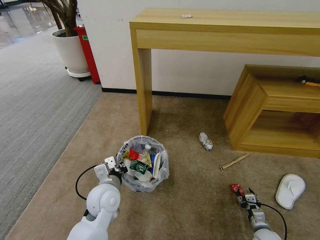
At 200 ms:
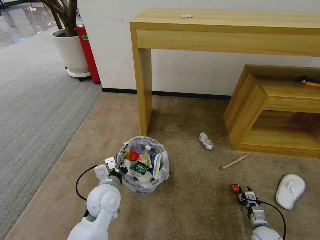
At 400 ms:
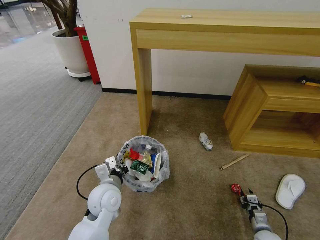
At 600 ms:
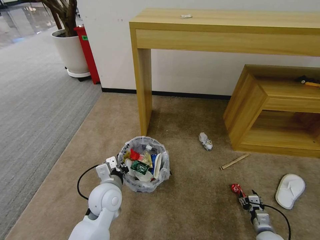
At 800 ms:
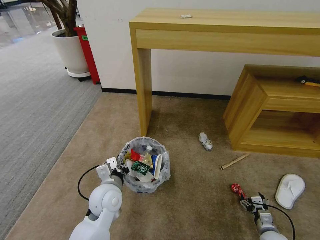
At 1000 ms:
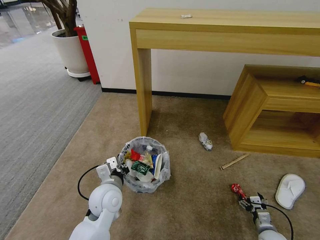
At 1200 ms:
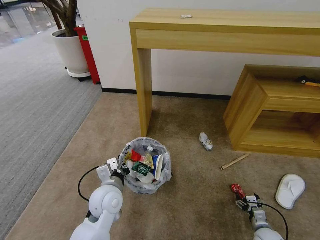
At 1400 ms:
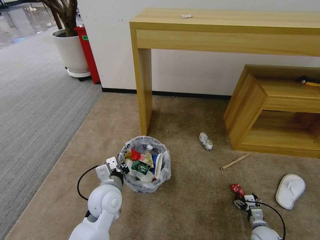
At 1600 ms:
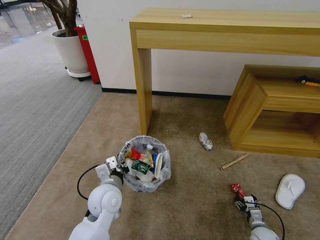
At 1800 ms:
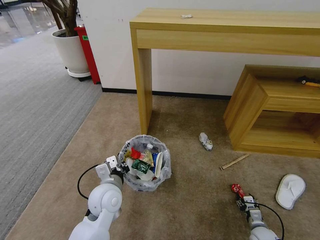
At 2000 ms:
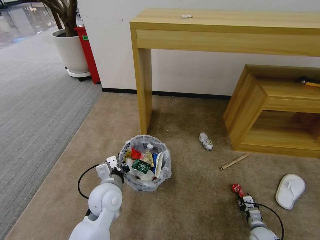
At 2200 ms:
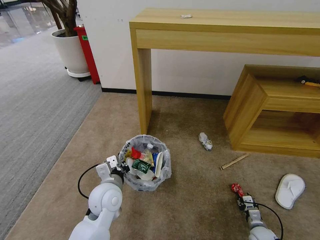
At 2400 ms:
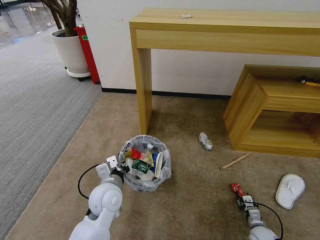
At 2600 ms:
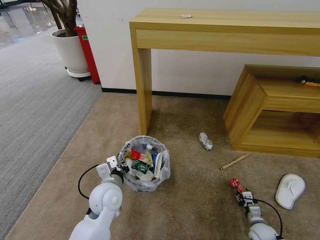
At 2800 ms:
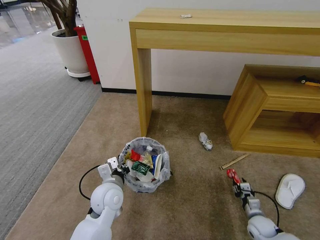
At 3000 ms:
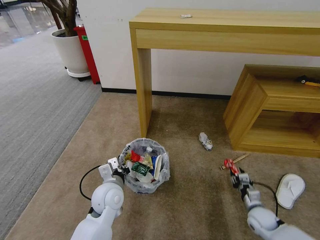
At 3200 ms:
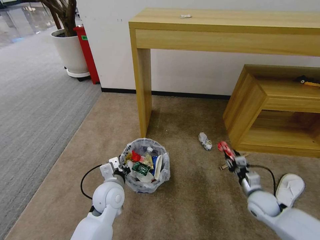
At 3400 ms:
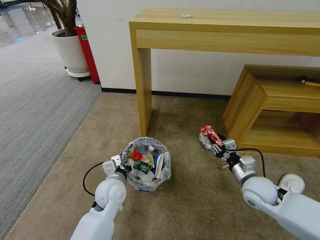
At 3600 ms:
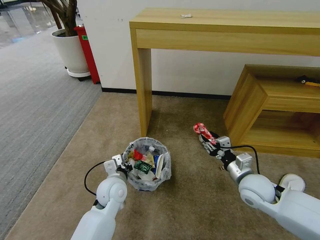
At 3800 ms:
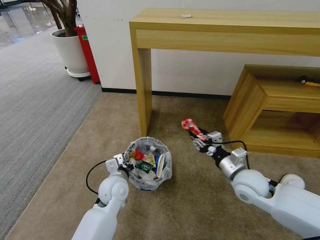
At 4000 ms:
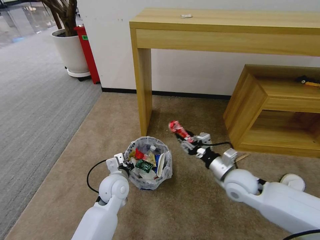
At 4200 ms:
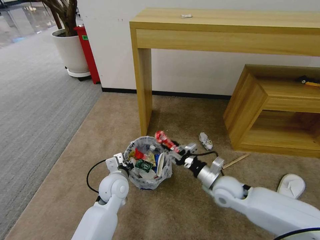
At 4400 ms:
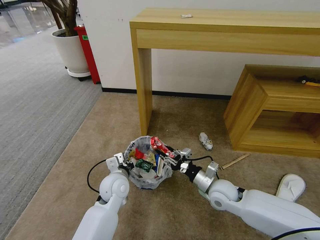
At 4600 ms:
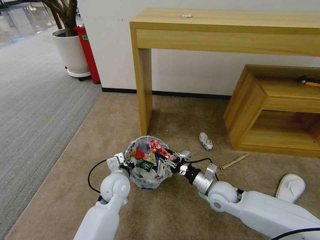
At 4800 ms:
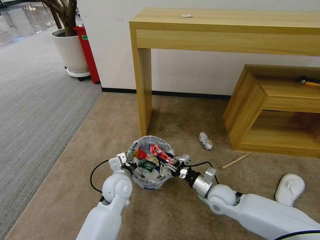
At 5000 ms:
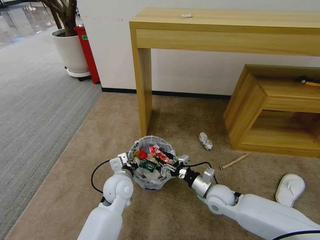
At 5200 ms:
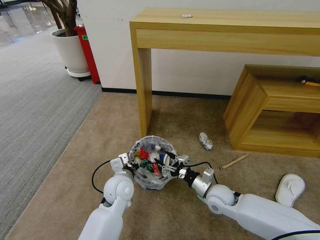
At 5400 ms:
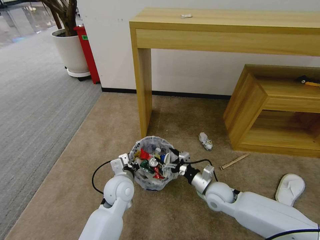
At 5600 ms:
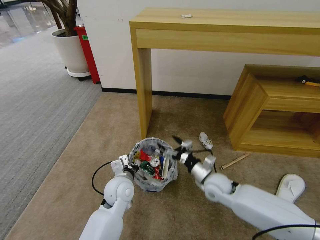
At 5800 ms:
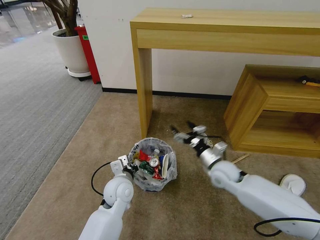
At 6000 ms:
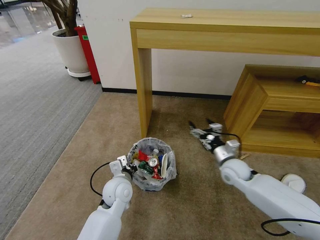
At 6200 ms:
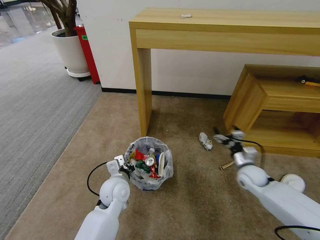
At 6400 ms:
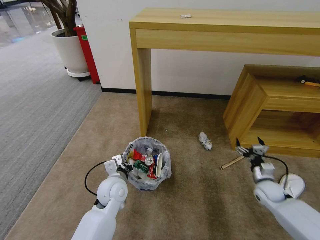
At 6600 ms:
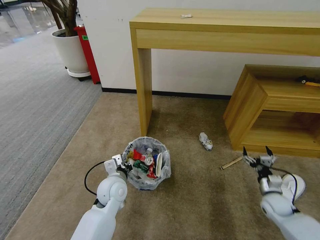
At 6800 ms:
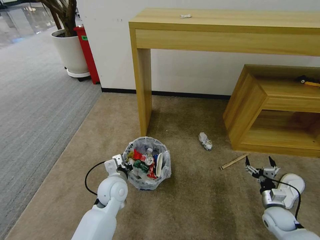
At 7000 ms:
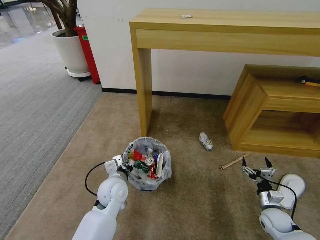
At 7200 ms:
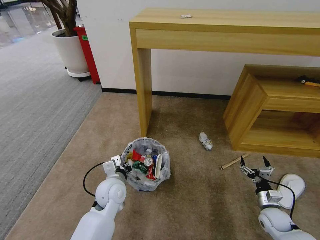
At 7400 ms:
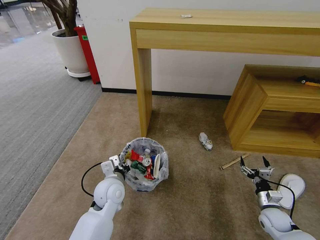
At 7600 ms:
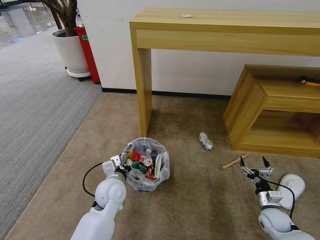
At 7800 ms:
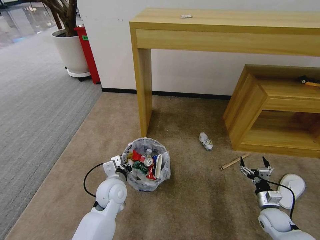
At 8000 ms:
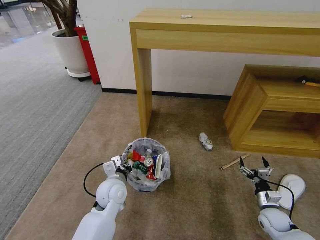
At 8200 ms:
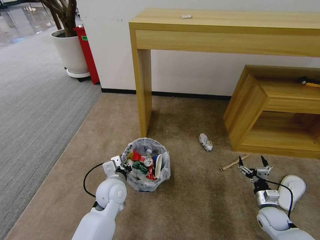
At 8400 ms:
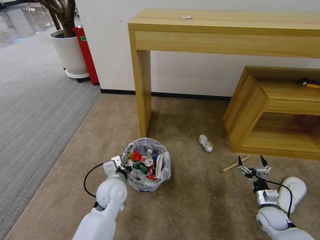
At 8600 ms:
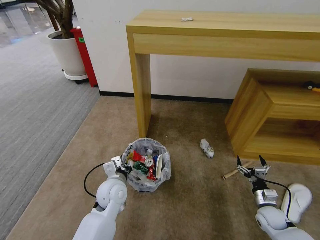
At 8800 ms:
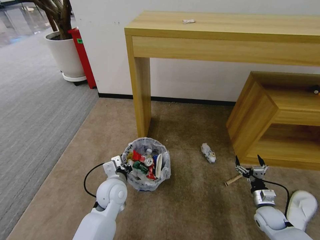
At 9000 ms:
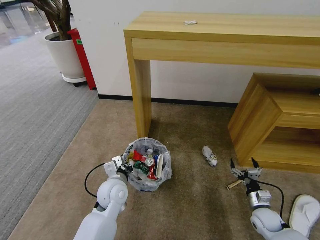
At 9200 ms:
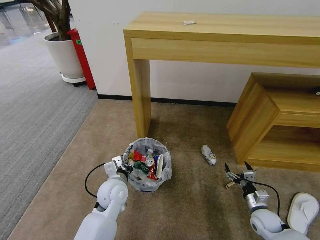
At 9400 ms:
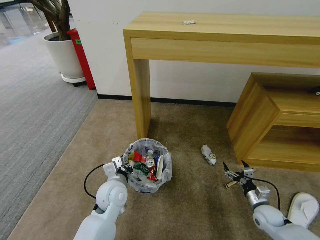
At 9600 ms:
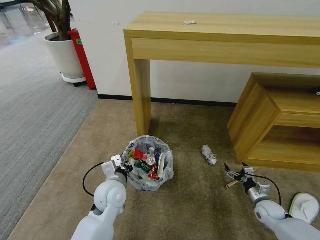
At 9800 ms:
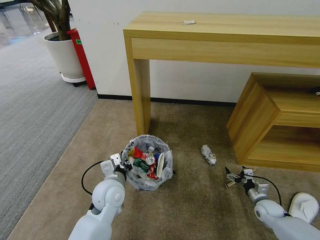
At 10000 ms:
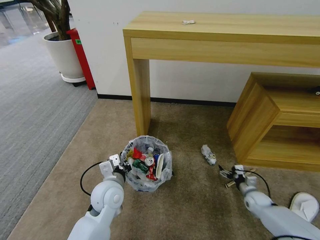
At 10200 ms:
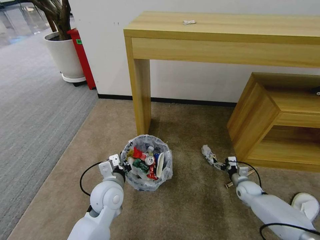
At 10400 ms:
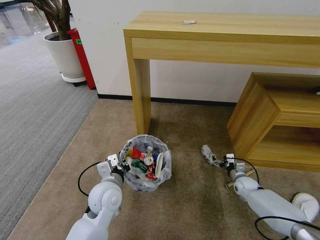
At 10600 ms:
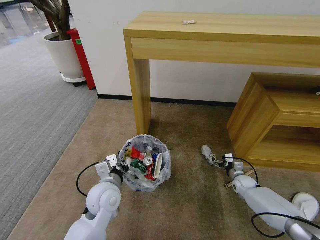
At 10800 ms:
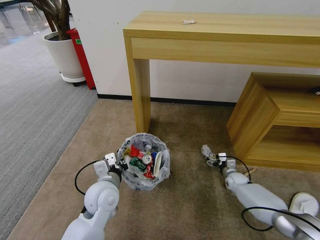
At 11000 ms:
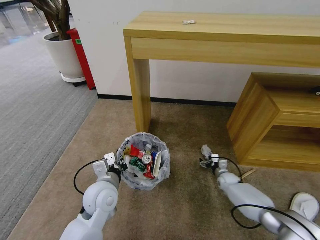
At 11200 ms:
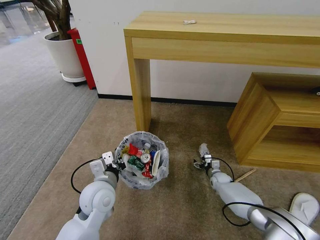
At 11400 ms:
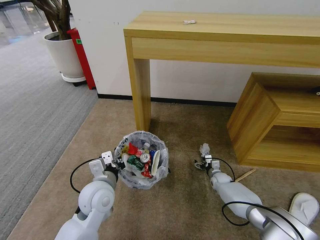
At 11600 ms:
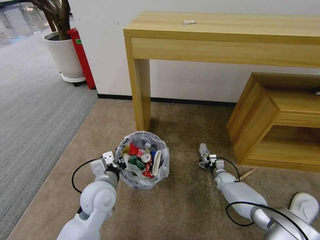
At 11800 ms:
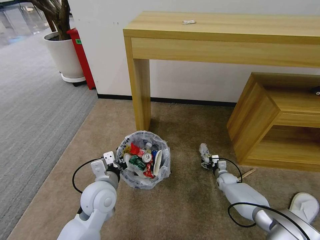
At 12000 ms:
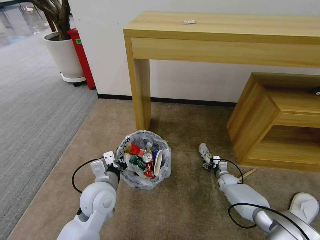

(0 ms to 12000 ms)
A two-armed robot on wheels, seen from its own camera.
Task of the whole recording: Pick up the trash bin and place the garbage on the floor into it.
0 ms - 1600 ms: There are only small adjustments of the grippers.
1600 ms - 3000 ms: The right gripper heads upward and forward, covering roughly 15 cm, and closes its fingers.
3000 ms - 4400 ms: The right gripper heads to the left and upward, covering about 20 cm.
4400 ms - 6000 ms: The right gripper travels forward and to the right by approximately 10 cm, and opens up.
6000 ms - 7600 ms: The right gripper goes about 25 cm to the right, downward and backward.
9000 ms - 10400 ms: The right gripper is displaced forward by about 15 cm.
10400 ms - 12000 ms: The right gripper moves to the left, about 5 cm.

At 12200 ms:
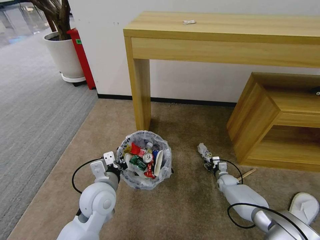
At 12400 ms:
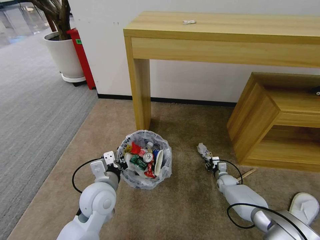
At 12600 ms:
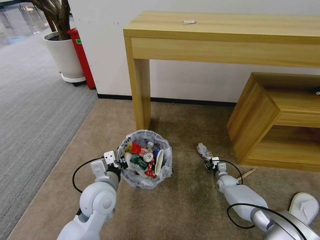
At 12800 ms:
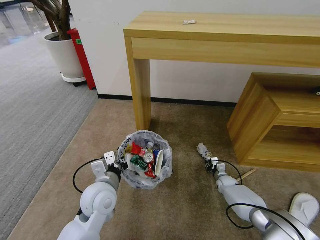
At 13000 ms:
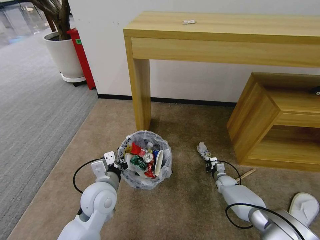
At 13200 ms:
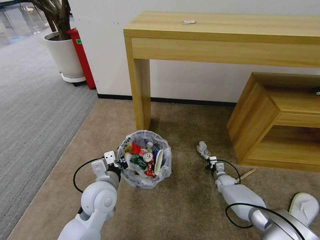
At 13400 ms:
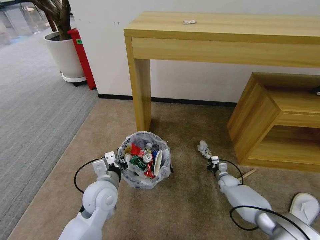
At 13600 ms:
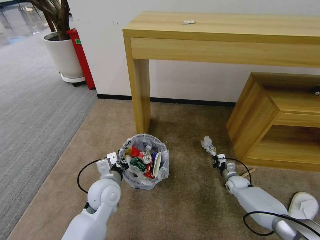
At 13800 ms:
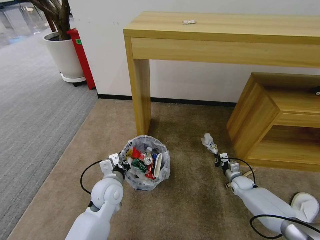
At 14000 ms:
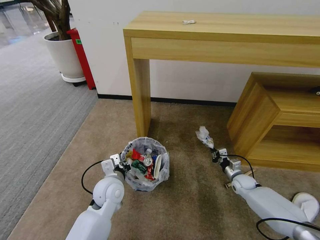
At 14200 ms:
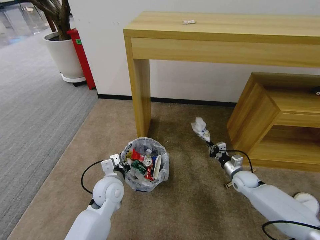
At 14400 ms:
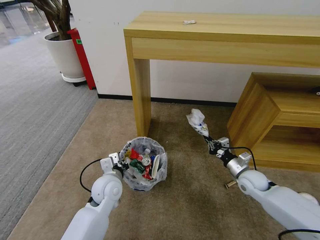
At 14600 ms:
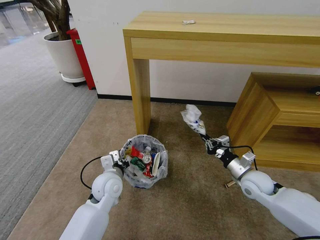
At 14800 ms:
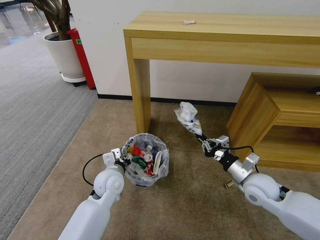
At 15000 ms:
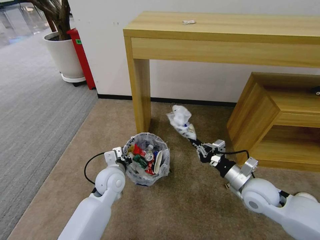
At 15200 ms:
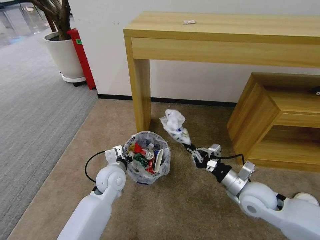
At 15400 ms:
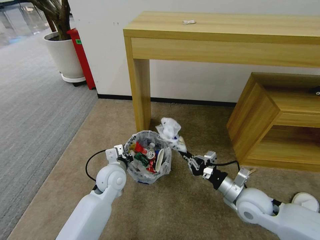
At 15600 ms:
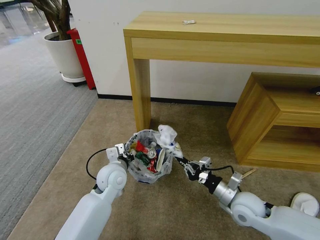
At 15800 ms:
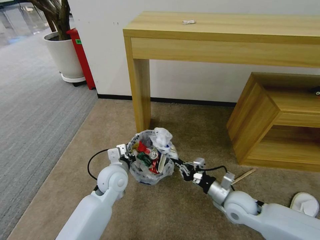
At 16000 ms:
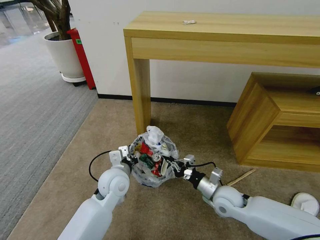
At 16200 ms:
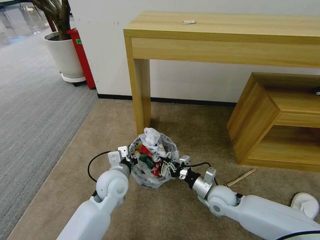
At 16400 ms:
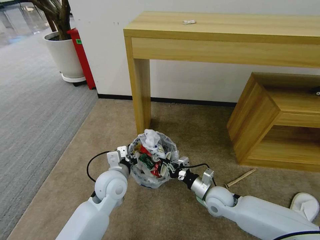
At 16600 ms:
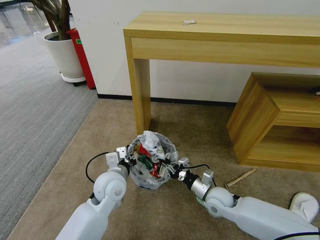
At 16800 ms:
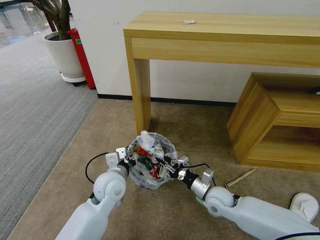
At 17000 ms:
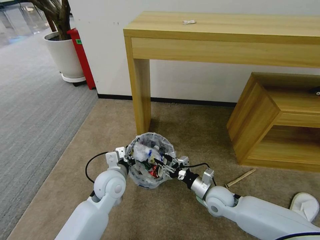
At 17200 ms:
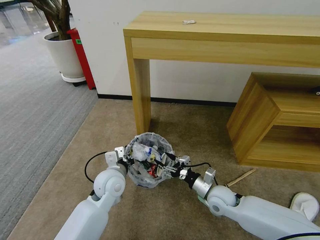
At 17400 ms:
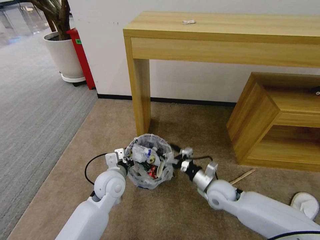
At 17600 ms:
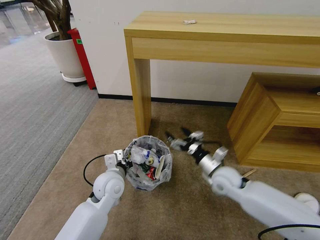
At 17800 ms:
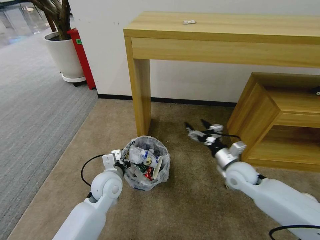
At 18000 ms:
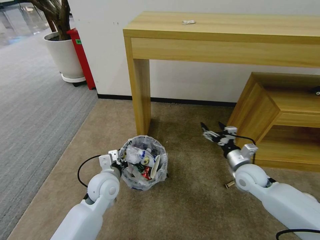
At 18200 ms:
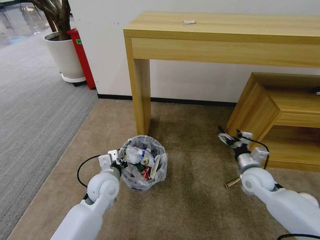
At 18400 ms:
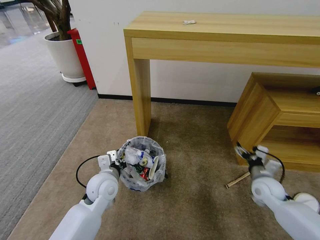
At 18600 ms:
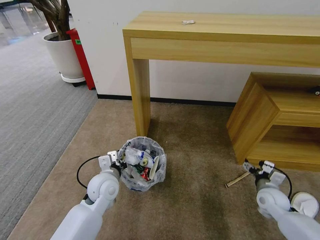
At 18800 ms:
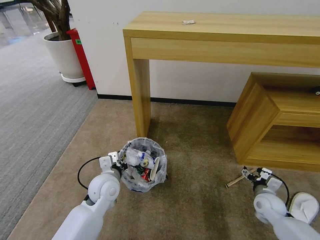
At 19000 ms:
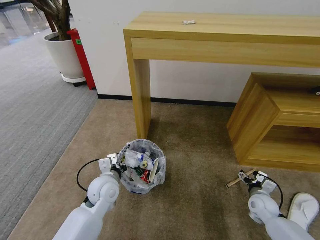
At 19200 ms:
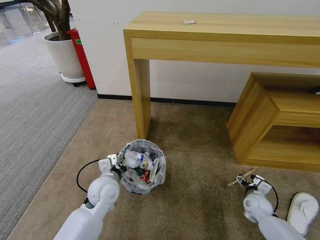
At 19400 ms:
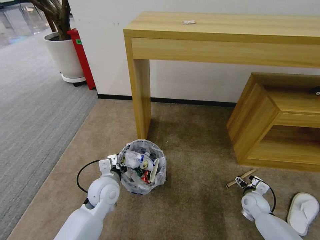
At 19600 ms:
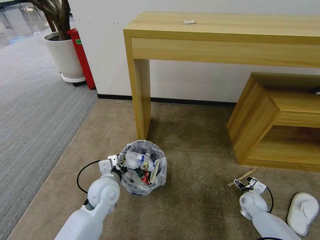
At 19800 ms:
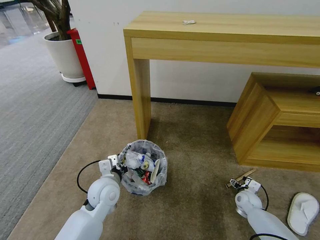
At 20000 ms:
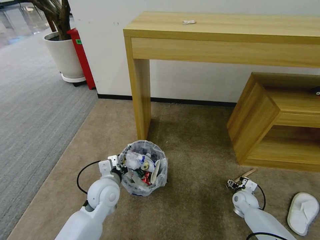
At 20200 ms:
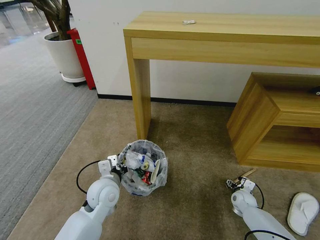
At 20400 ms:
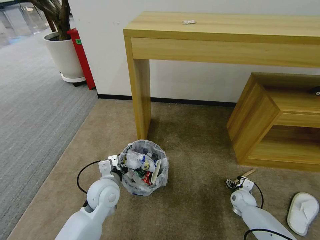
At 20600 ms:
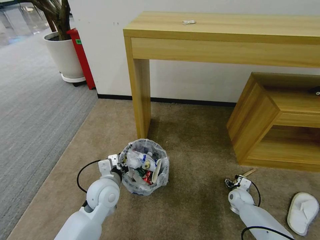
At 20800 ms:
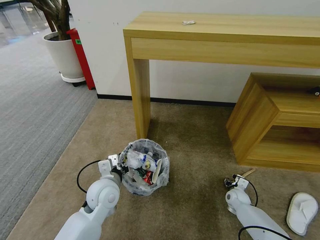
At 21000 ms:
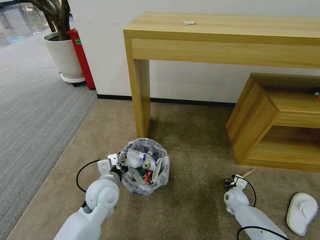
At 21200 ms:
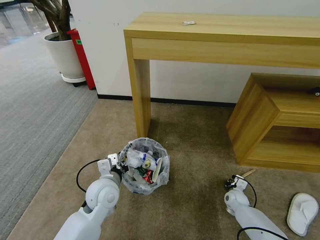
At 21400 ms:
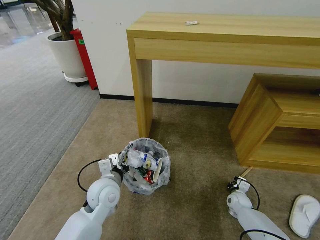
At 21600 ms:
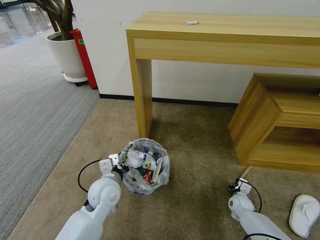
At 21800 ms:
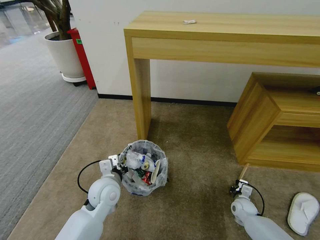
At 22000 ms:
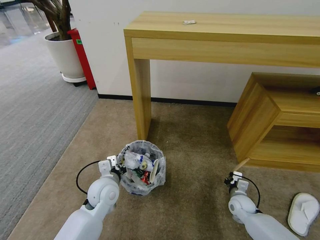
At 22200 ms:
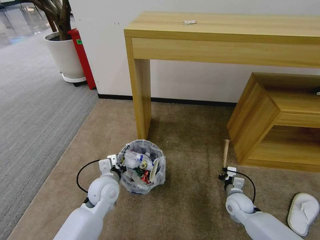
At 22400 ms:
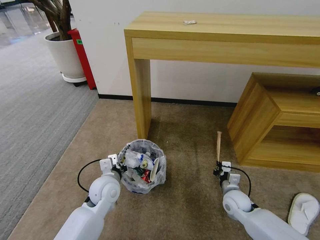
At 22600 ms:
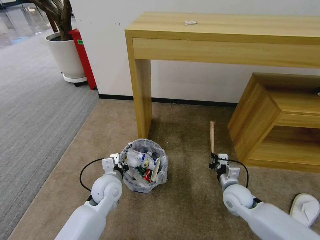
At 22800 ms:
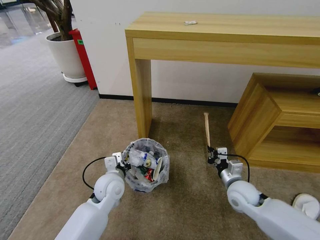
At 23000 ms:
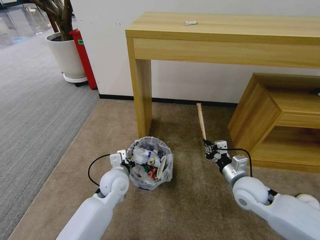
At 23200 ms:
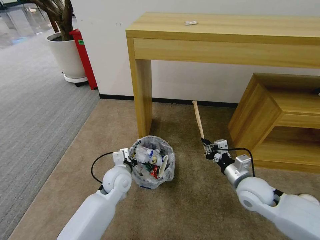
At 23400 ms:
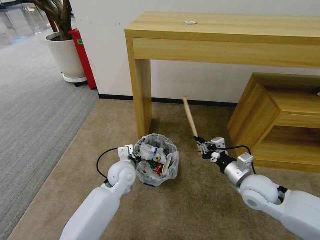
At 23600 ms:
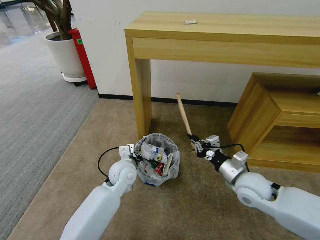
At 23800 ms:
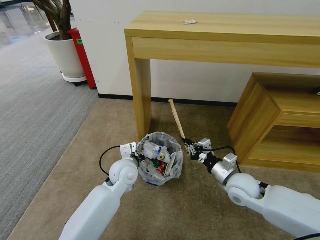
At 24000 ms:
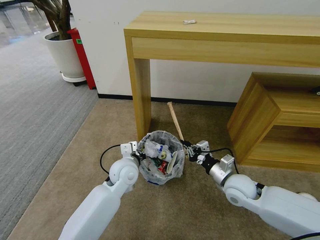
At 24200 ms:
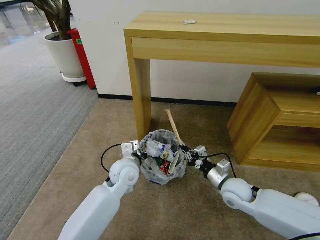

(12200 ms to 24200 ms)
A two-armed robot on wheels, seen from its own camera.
Task of the whole recording: Pick up the trash bin and place the garbage on the floor into it.
12200 ms - 13800 ms: The right gripper changes place by about 5 cm, and closes. Meanwhile the left gripper ends up about 5 cm from where it was.
13800 ms - 15200 ms: The right gripper goes some 30 cm upward, backward and to the left.
15200 ms - 16600 ms: The right gripper heads downward and to the left, covering approximately 15 cm.
16600 ms - 18200 ms: The right gripper travels to the right and upward by some 15 cm, and opens its fingers.
18200 ms - 19800 ms: The right gripper shifts some 20 cm downward.
19800 ms - 21200 ms: The right gripper moves approximately 5 cm, and closes.
21200 ms - 22600 ms: The right gripper travels upward and to the left by some 15 cm.
22600 ms - 24200 ms: The left gripper travels to the right by approximately 5 cm. Meanwhile the right gripper shifts some 5 cm upward.
